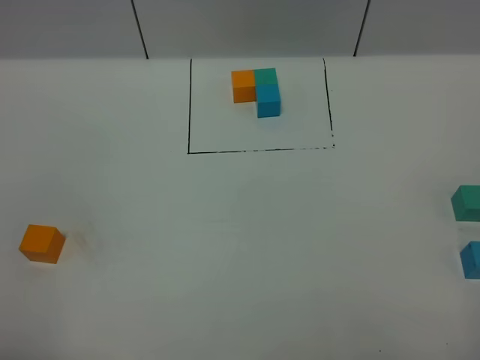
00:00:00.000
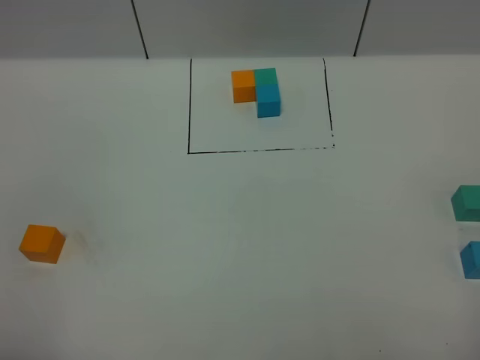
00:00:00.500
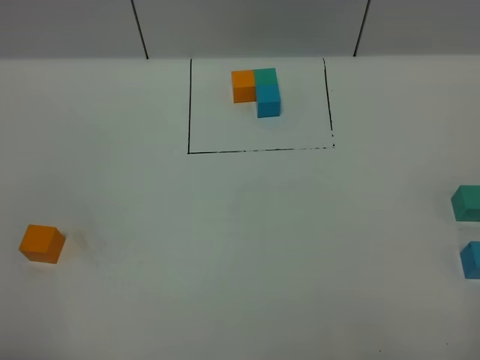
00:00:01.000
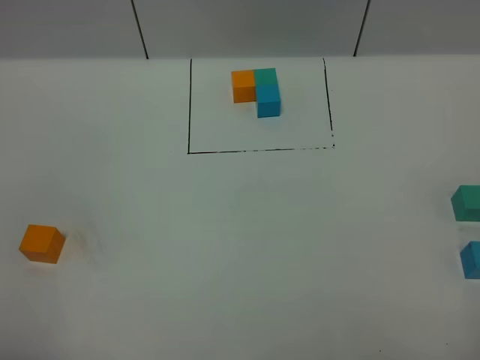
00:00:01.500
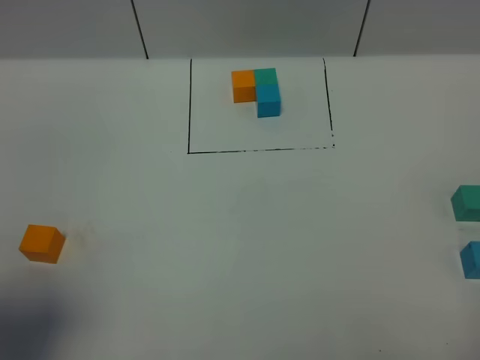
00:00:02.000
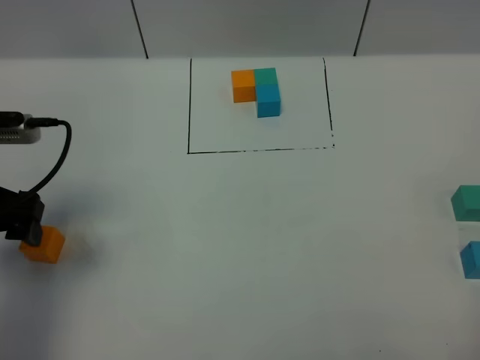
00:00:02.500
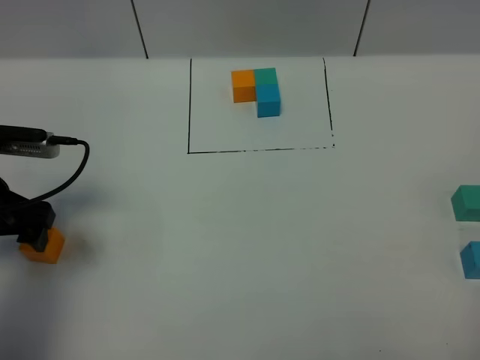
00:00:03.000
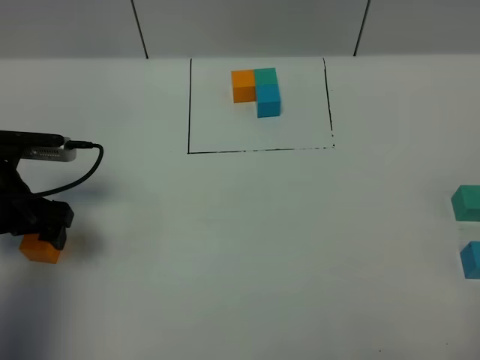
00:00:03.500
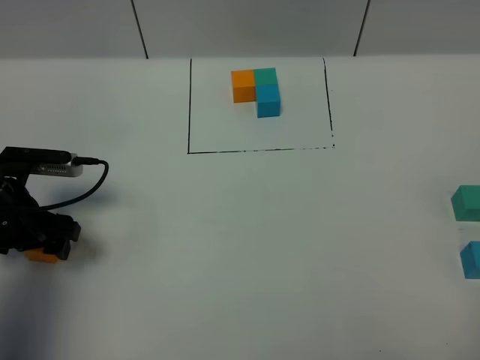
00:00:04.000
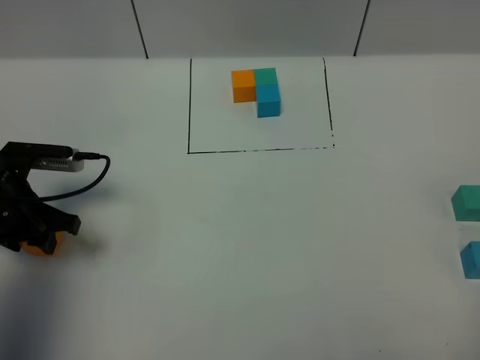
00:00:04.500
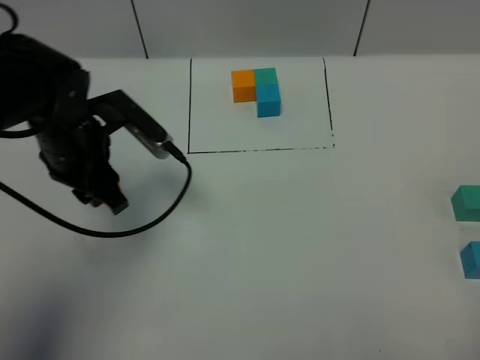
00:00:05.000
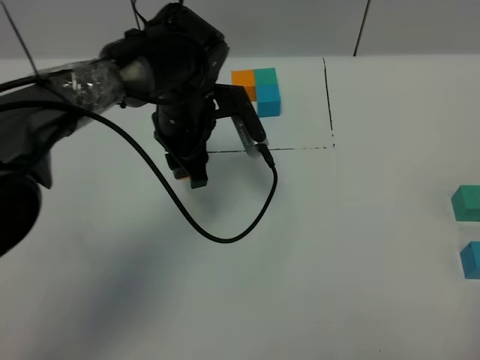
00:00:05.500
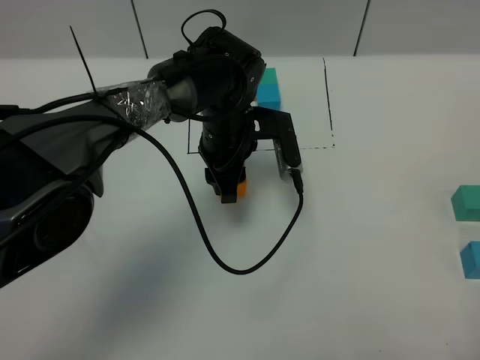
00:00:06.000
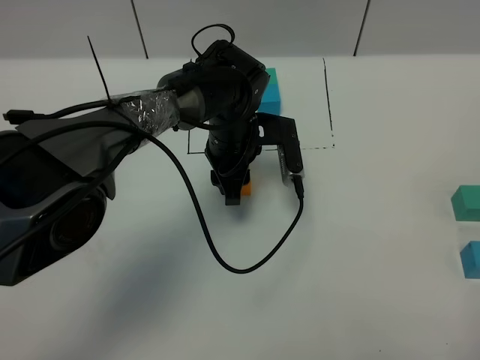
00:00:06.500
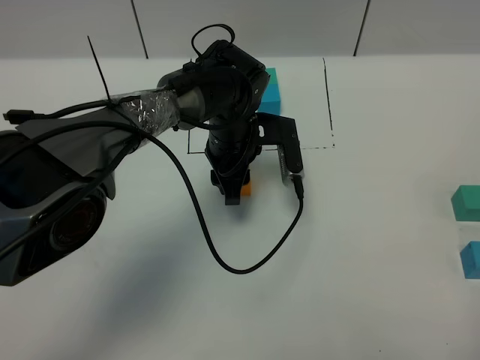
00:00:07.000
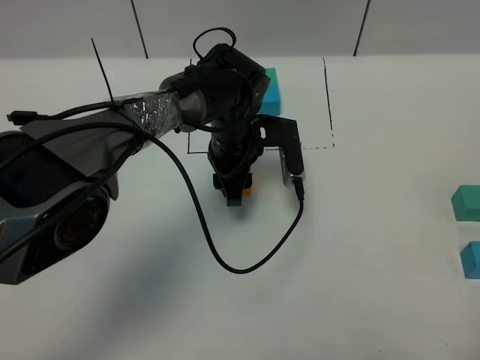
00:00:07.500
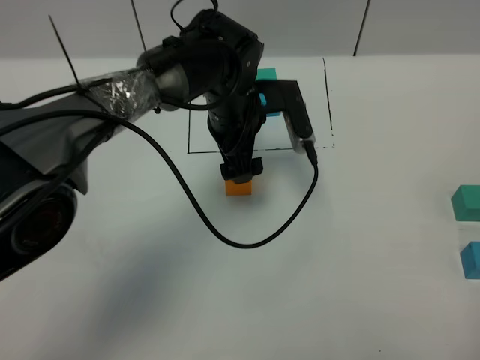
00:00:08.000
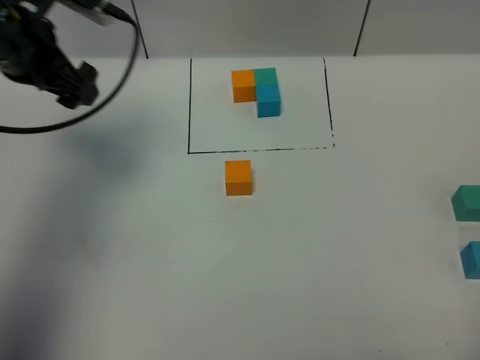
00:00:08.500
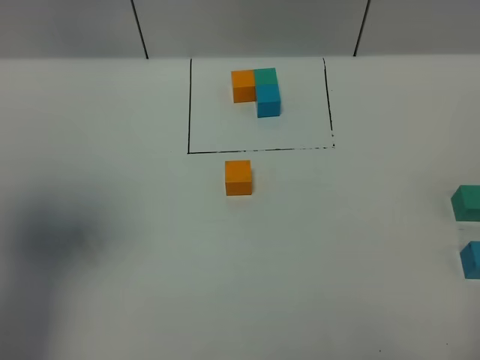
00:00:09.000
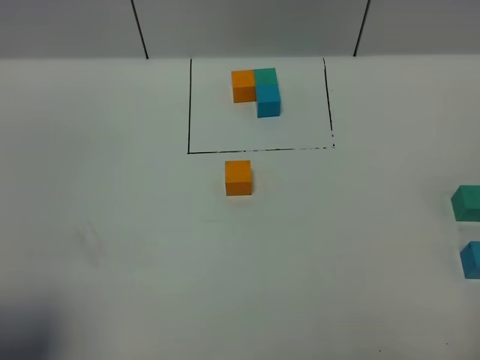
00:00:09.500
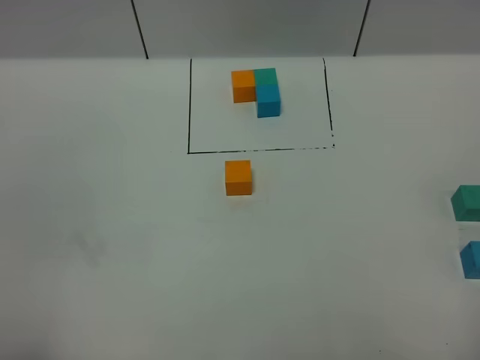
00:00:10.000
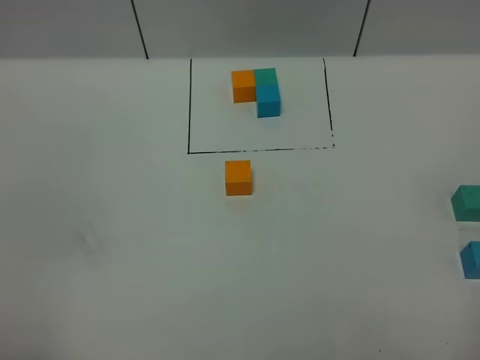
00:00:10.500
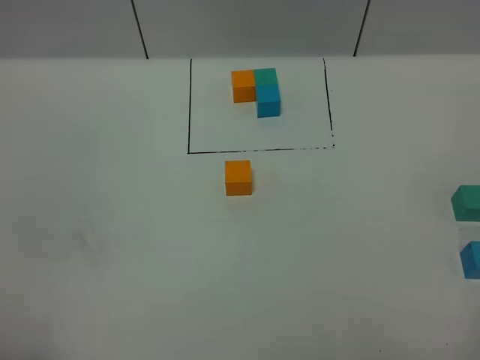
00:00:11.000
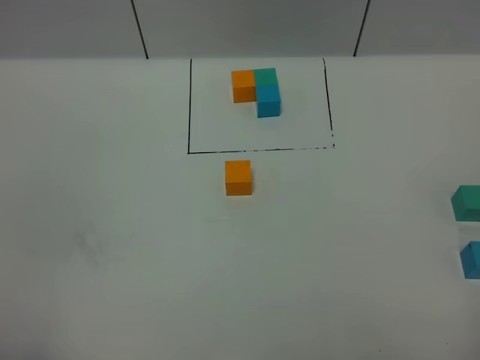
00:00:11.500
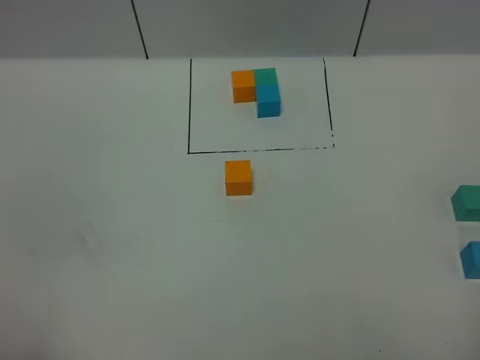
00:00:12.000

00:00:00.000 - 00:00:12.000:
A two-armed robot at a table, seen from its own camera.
Task of the whole recording: According to the building block template in front, assemble the scattered blocks together.
Step, 00:00:00.000 - 00:00:07.500: Put the orange build block in the center of the table.
00:00:00.000 - 00:00:02.000: The left gripper goes roughly 10 cm forward.
00:00:02.000 - 00:00:04.000: The left gripper travels downward and forward by approximately 25 cm.
00:00:04.000 - 00:00:06.000: The left gripper shifts some 30 cm to the right and forward, and closes up.
00:00:06.000 - 00:00:08.000: The left gripper opens its fingers.
00:00:08.000 - 00:00:10.000: The left gripper shifts approximately 50 cm backward and to the left.

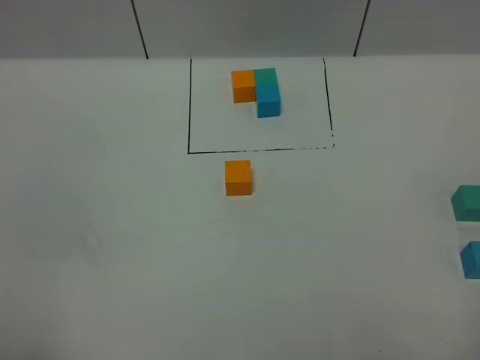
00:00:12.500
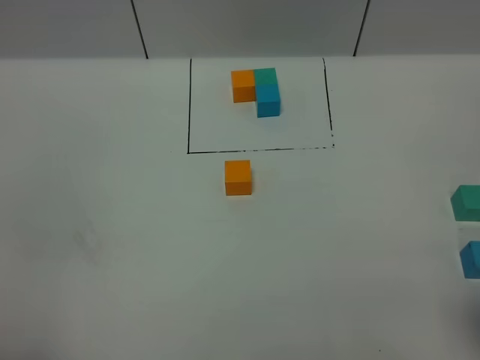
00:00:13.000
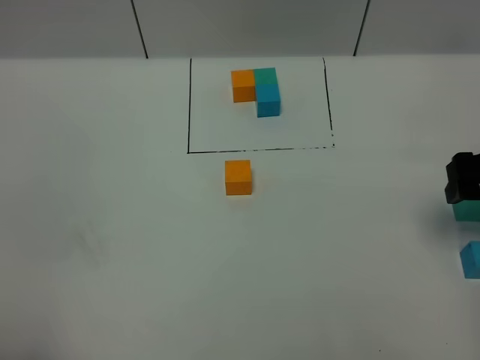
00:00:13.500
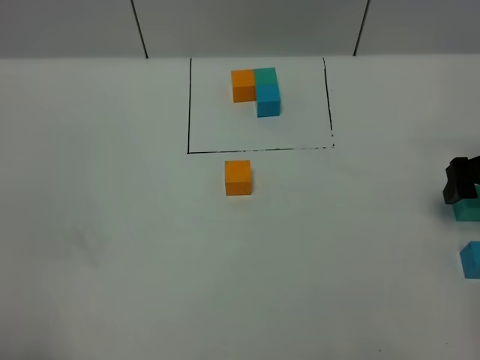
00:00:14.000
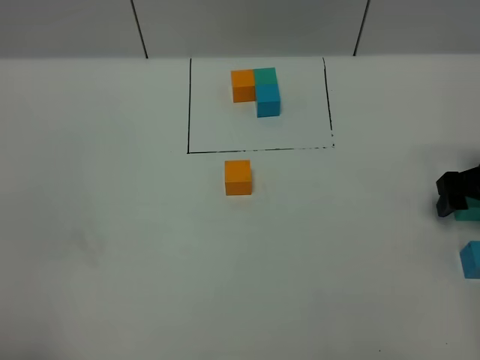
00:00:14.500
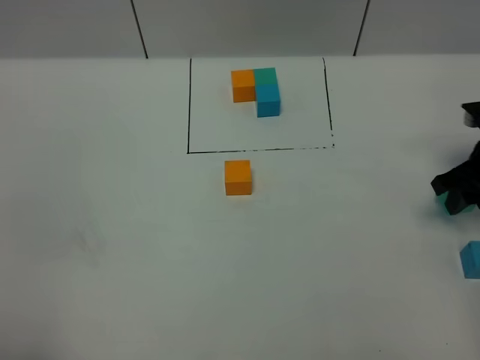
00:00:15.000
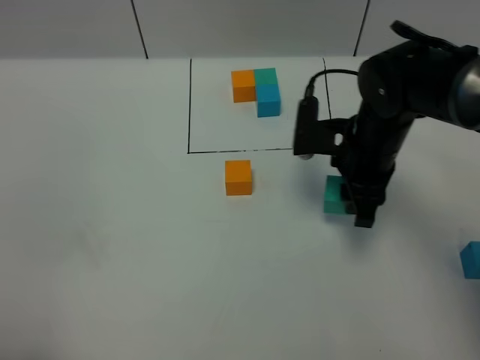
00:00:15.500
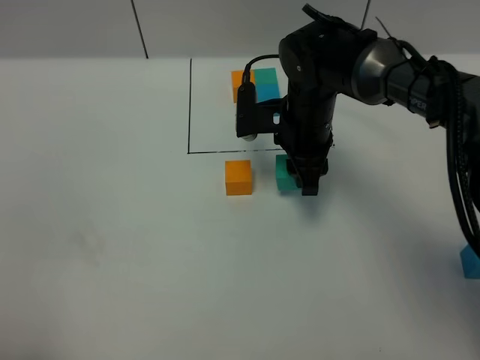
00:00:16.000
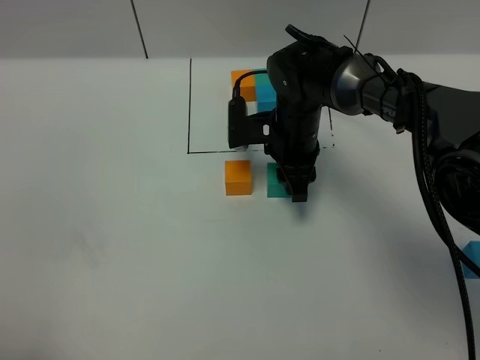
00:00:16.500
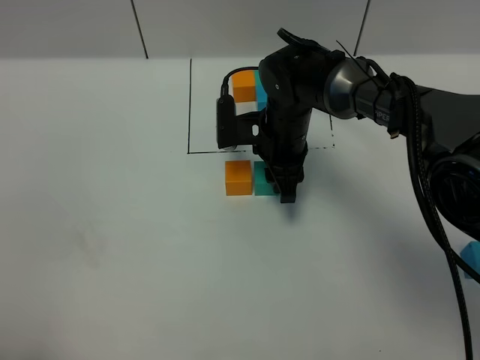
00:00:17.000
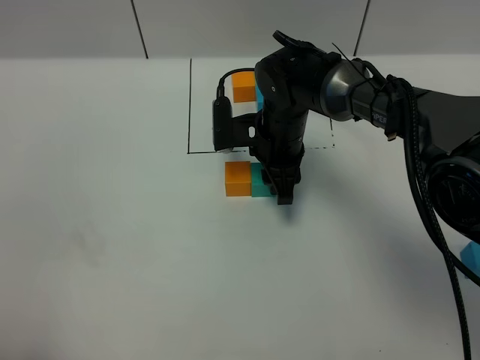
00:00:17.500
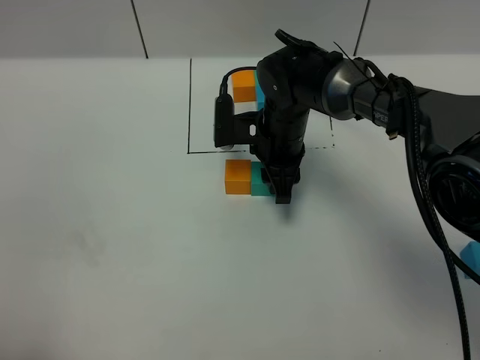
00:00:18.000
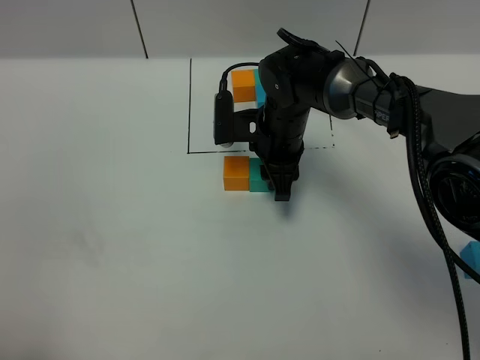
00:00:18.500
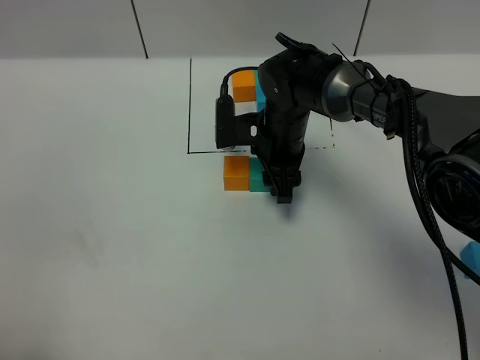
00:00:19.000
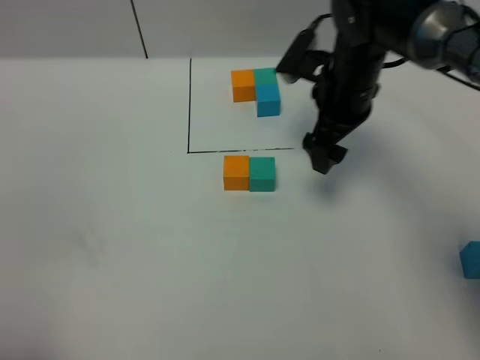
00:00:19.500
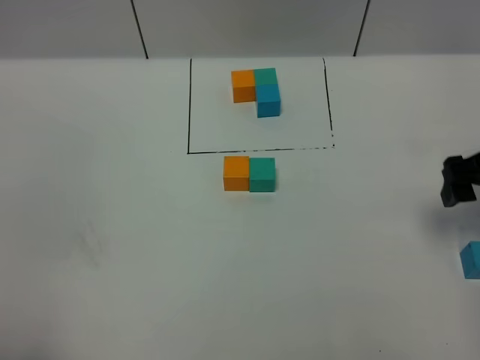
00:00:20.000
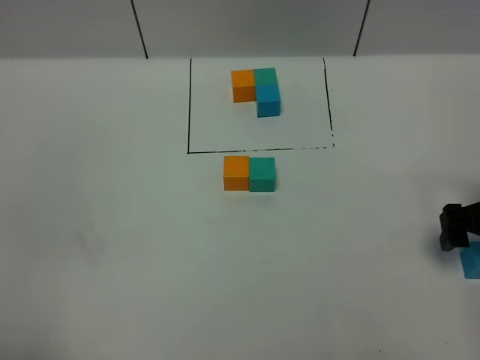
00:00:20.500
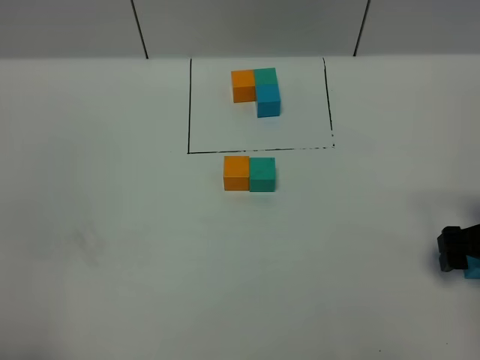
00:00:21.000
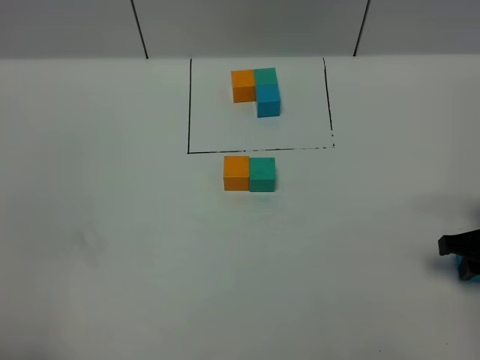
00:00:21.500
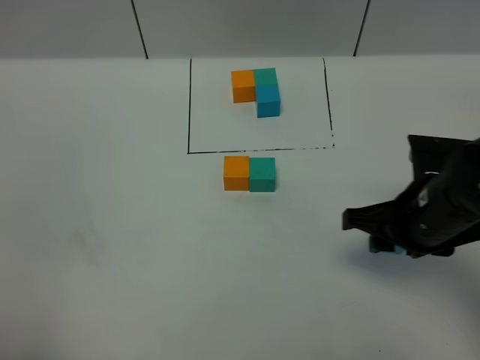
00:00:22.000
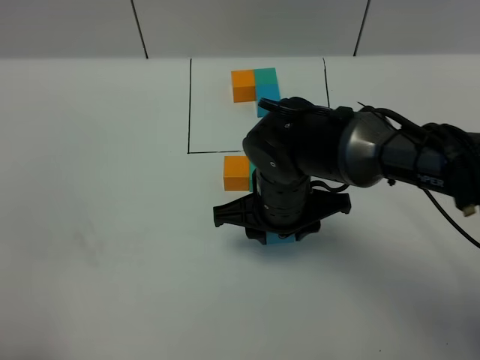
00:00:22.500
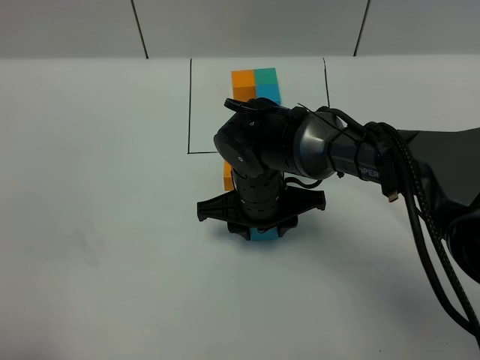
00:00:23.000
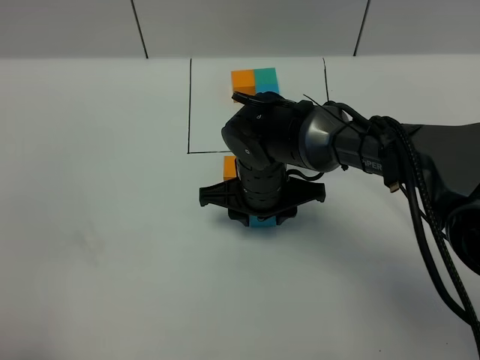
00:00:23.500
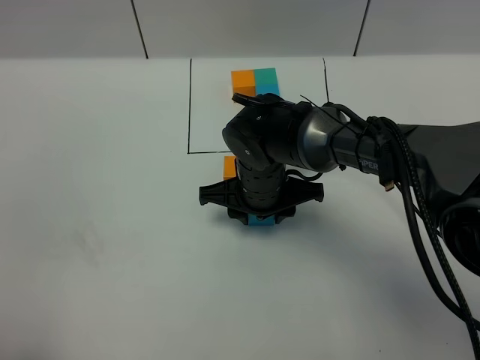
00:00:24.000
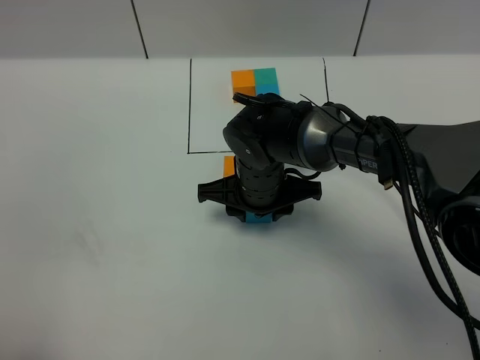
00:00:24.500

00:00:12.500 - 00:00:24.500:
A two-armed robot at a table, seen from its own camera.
Task of the whole recording: According to the building block template in front, assemble the scattered blocks together.
Step, 00:00:12.500 - 00:00:19.000: Put the green build block on the right of the orange build block.
00:00:12.500 - 00:00:14.500: The right gripper travels forward and downward by about 35 cm.
00:00:14.500 - 00:00:16.500: The right gripper shifts about 25 cm to the left, and closes up.
00:00:16.500 - 00:00:18.500: The grippers stay close to where they were, moving slightly.
00:00:18.500 - 00:00:20.500: The right gripper goes some 30 cm to the right and backward, and opens its fingers.
00:00:20.500 - 00:00:22.500: The right gripper shifts about 30 cm to the left, and closes up.
00:00:22.500 - 00:00:24.500: The right gripper ends up about 5 cm from where it was.

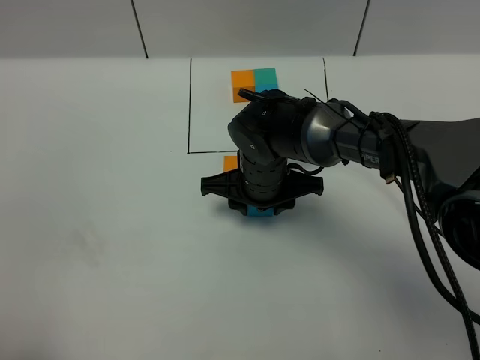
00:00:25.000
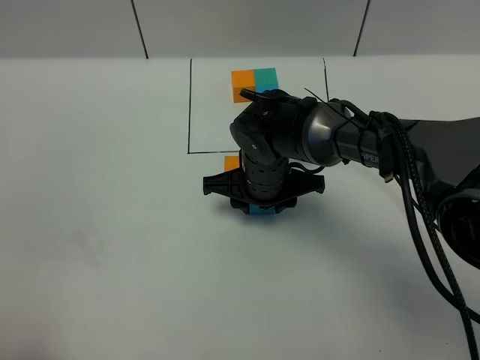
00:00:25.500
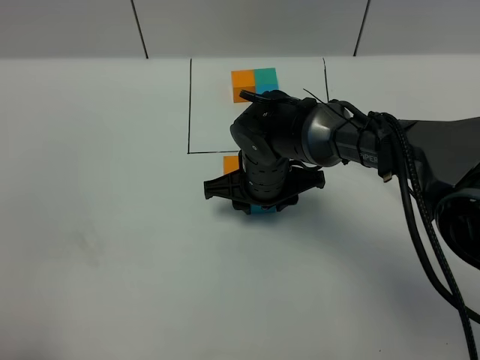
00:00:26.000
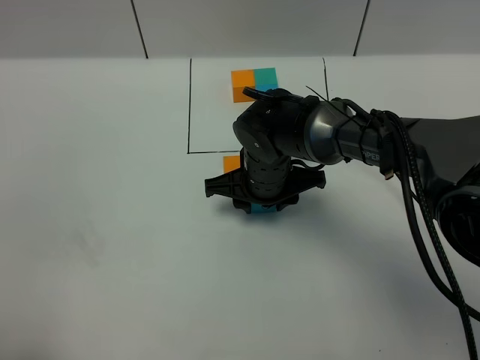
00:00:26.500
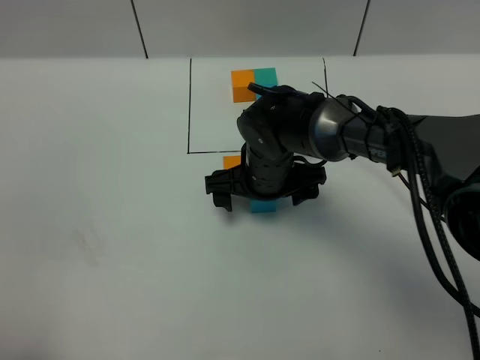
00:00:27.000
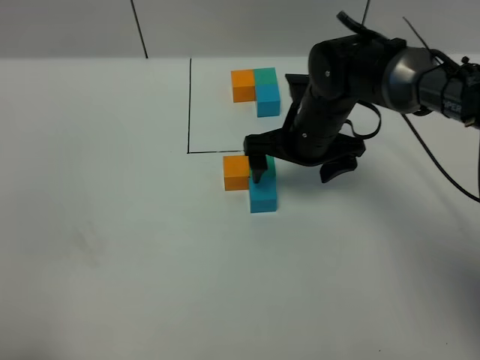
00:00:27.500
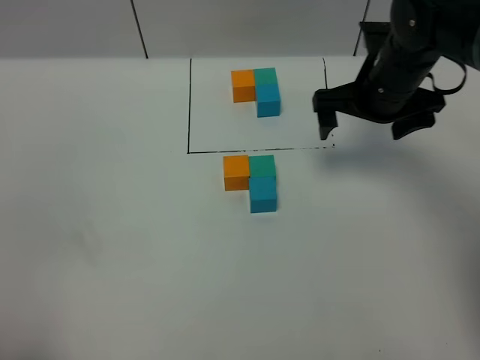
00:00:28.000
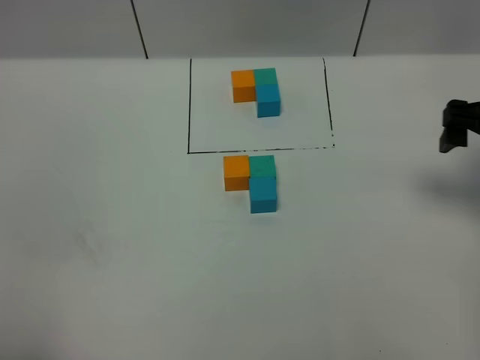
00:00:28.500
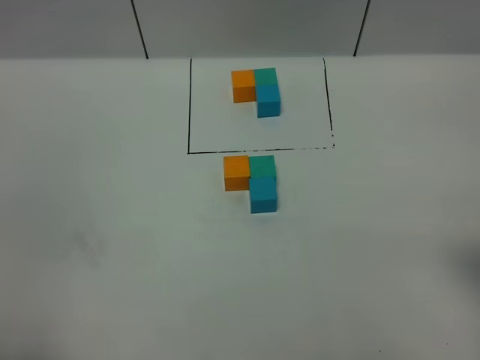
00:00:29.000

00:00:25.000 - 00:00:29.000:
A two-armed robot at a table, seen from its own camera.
Task of the whole recording: According to the building block template in front, assemble the scattered blocks together.
00:00:25.000 - 00:00:27.000: The right gripper opens up.
00:00:27.000 - 00:00:29.000: The right gripper heads to the right, backward and upward, covering approximately 40 cm.
